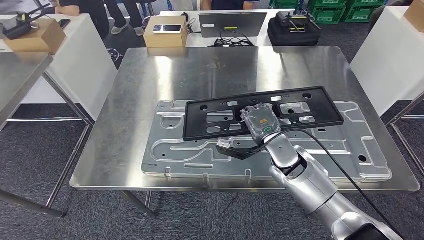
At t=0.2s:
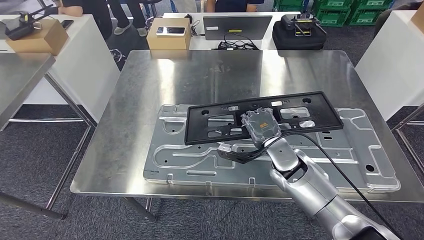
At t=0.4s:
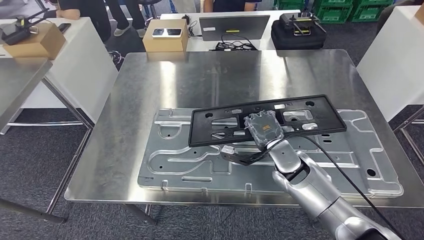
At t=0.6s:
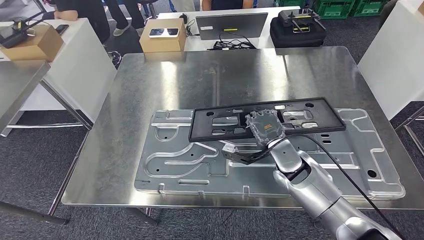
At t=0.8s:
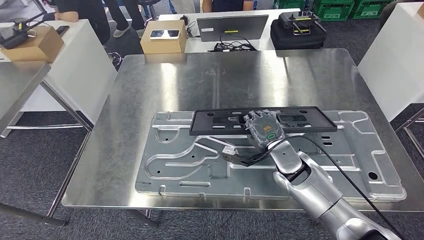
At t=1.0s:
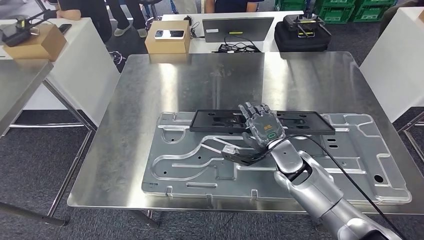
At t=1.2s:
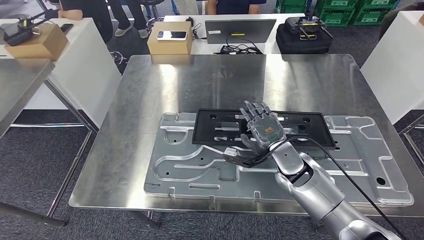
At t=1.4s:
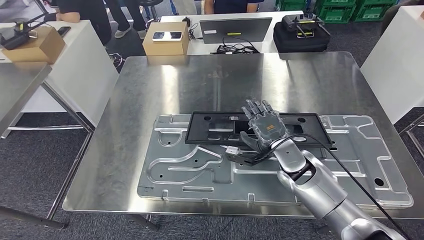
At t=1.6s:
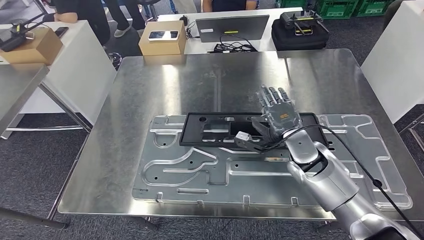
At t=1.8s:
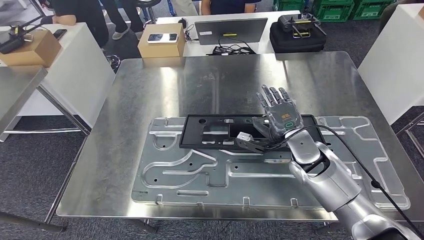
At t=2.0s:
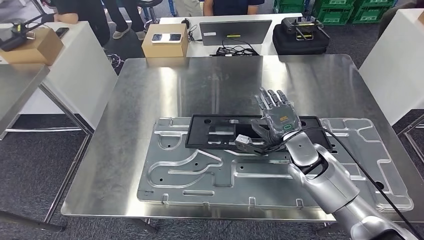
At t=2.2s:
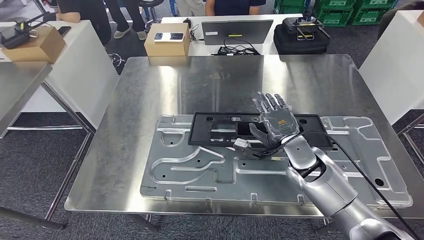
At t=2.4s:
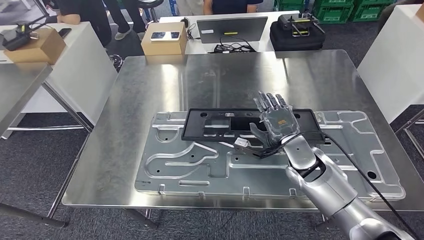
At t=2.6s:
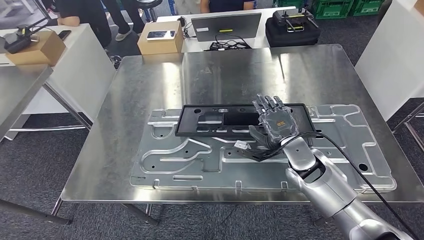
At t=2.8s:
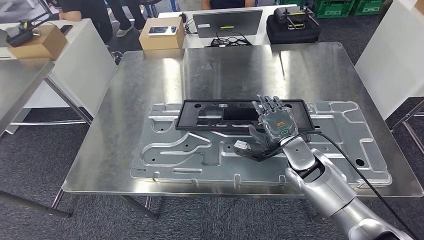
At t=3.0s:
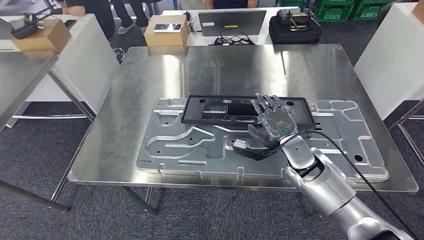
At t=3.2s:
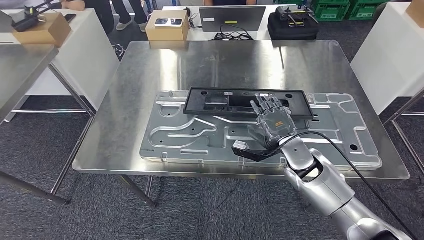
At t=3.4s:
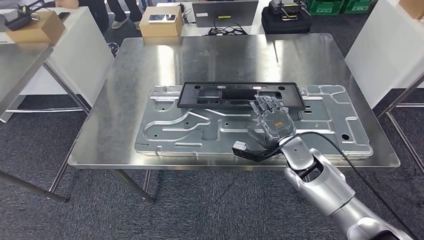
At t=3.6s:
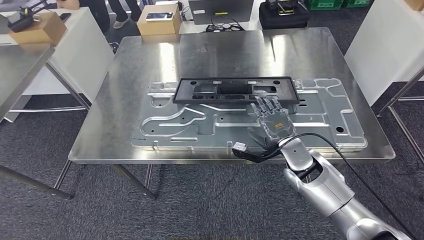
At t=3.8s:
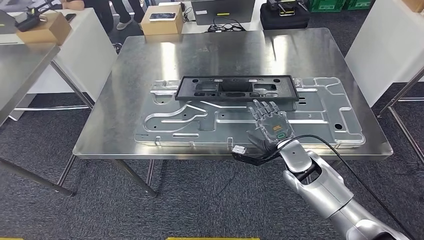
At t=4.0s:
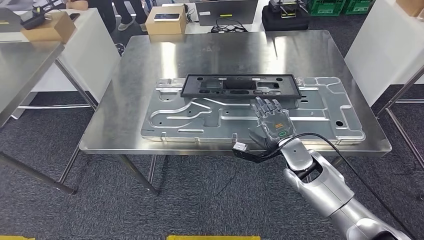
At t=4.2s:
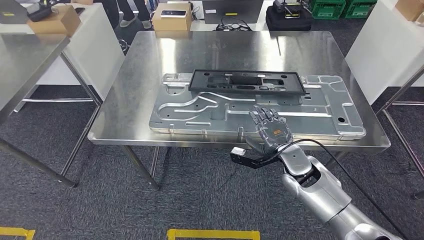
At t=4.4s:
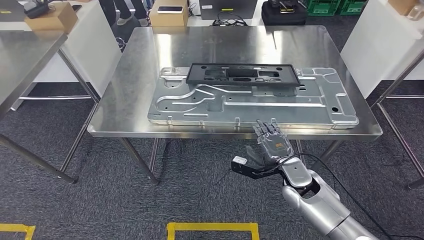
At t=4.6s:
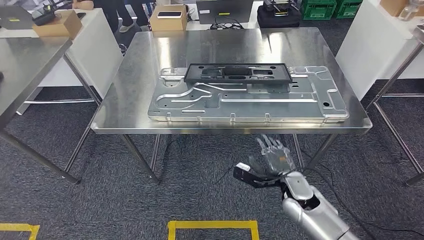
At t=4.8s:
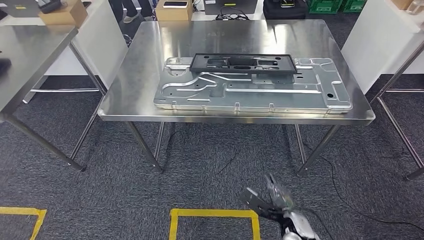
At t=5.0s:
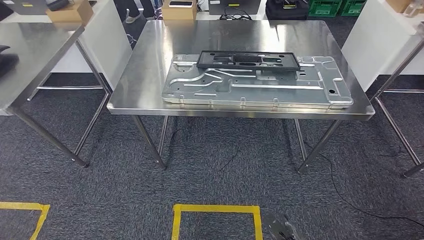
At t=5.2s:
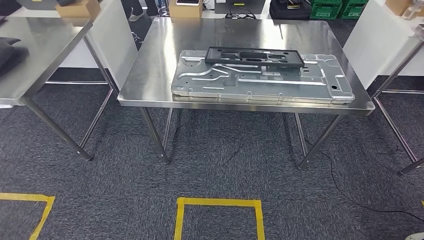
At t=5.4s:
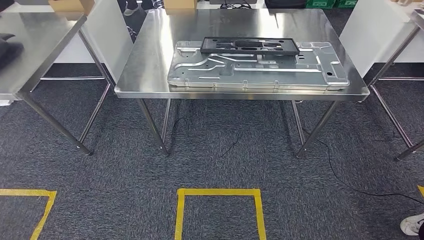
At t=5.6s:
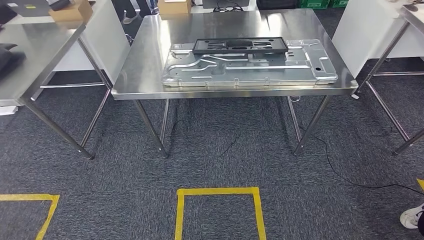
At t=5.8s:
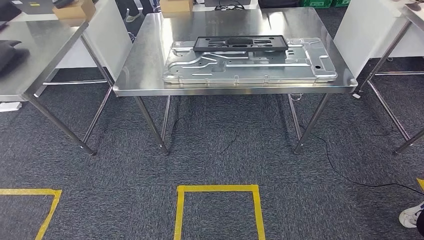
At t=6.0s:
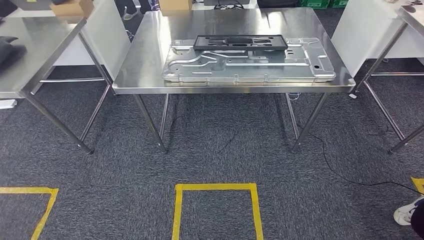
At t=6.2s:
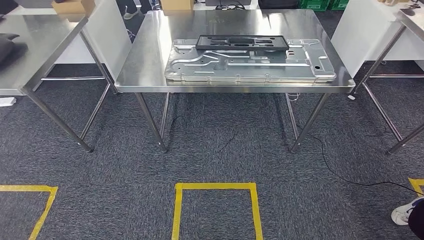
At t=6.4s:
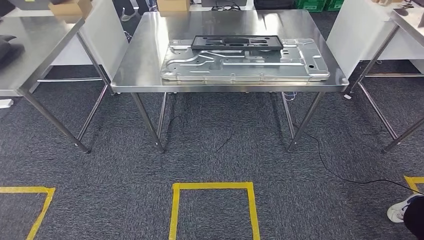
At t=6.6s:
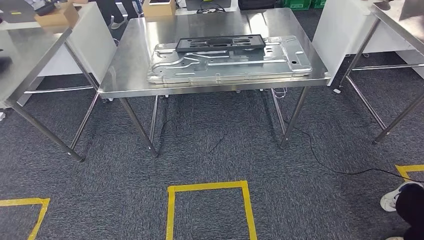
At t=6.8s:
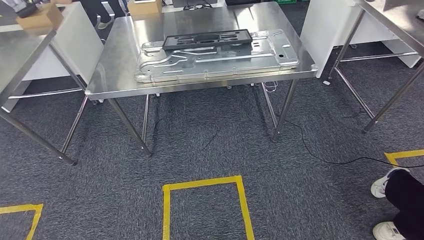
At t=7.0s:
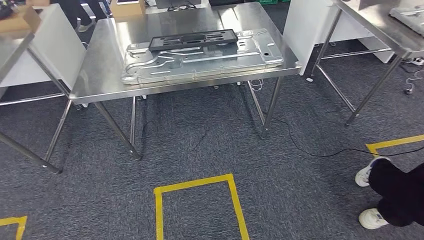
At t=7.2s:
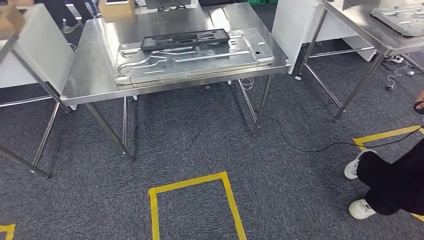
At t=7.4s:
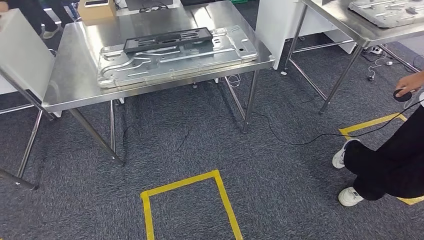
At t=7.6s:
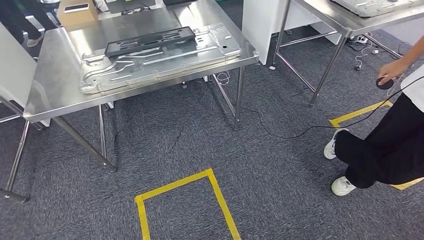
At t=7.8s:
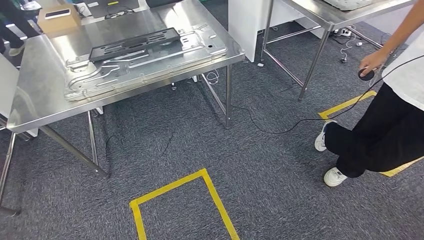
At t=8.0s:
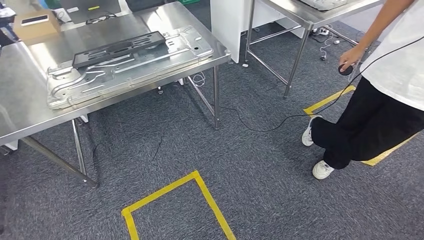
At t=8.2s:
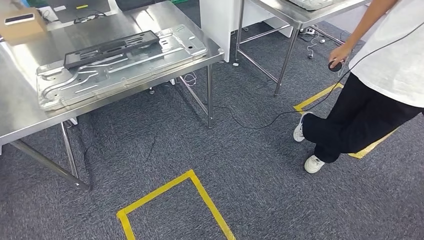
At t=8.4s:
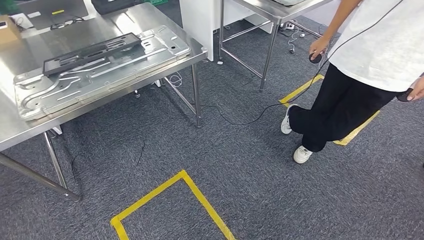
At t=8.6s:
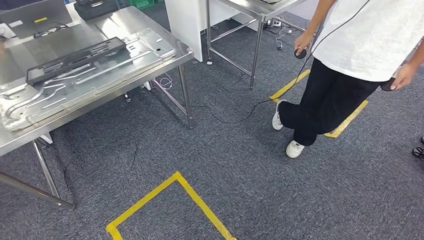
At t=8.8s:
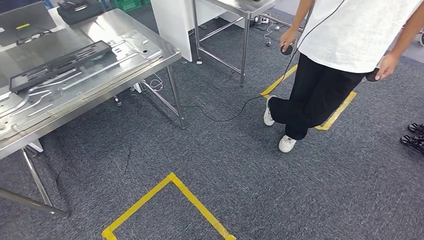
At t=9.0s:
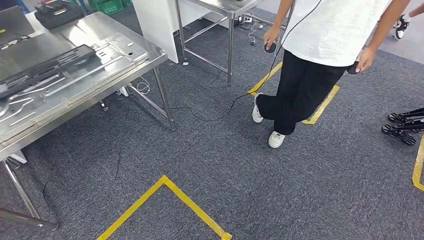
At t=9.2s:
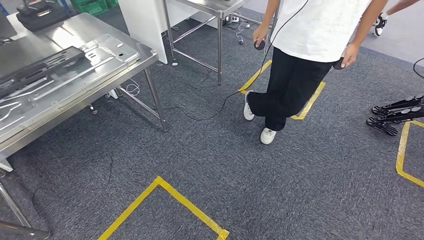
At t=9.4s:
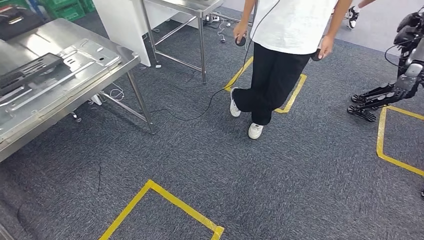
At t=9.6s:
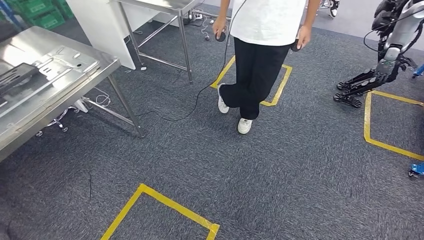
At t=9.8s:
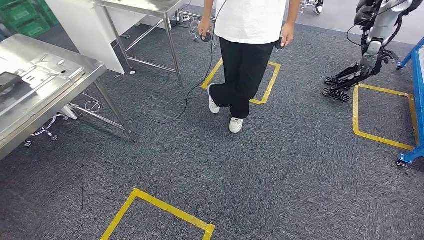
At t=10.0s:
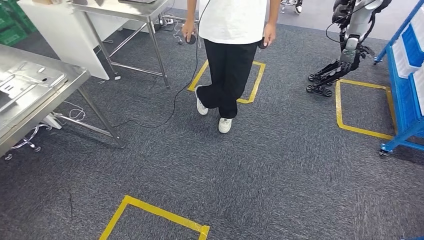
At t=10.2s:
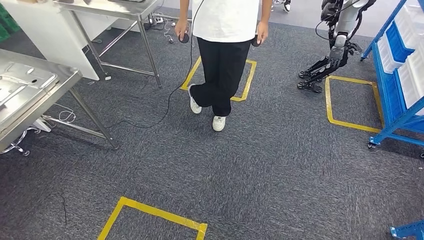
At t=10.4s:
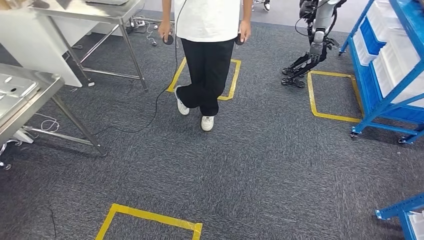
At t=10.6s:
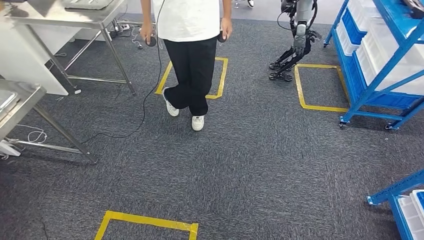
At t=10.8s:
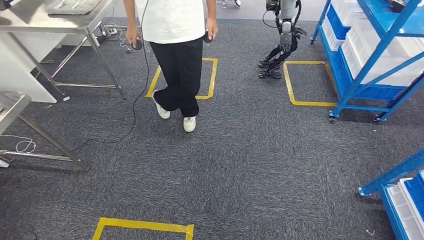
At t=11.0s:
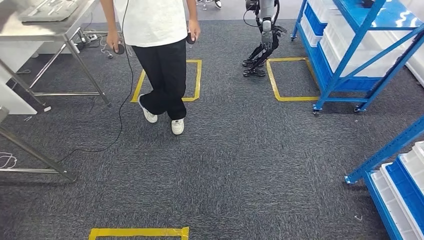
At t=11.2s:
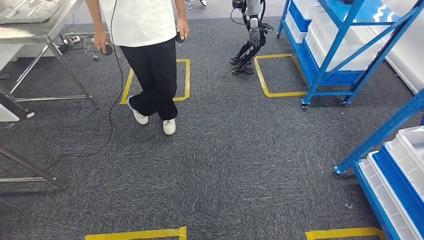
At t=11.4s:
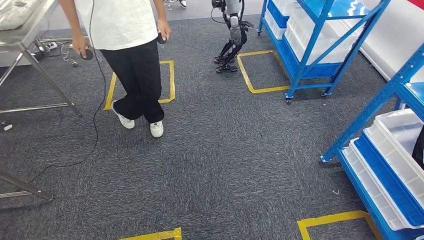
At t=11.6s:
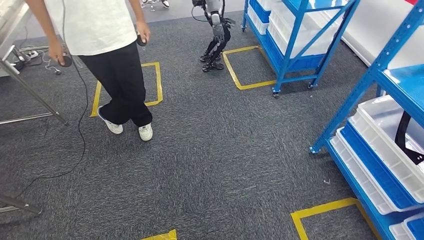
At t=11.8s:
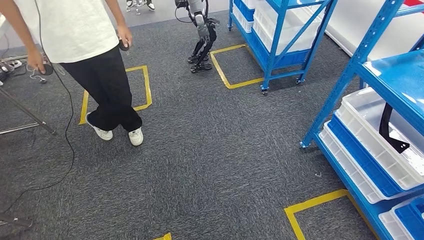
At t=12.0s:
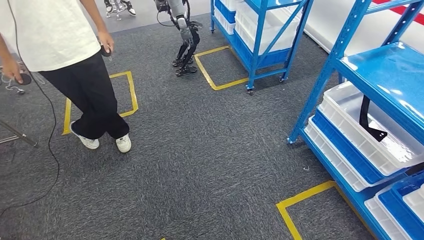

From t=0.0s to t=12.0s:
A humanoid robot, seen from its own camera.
Step, from t=0.0s to t=6.4s: Insert the large material into the corresponding slot on the workbench.

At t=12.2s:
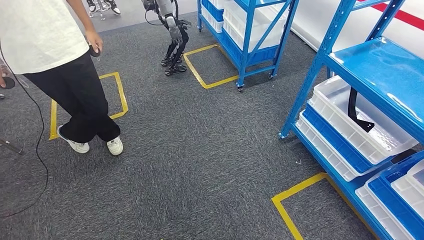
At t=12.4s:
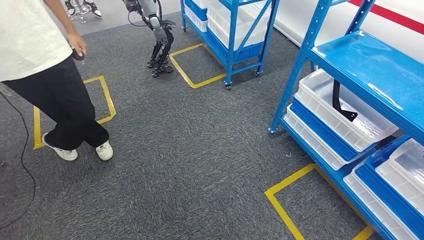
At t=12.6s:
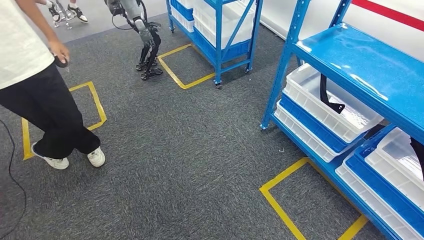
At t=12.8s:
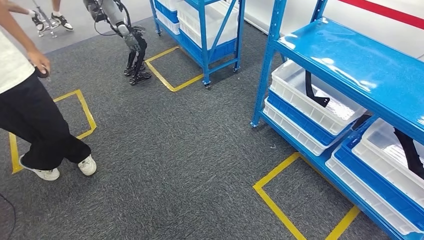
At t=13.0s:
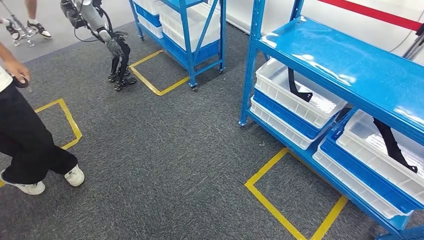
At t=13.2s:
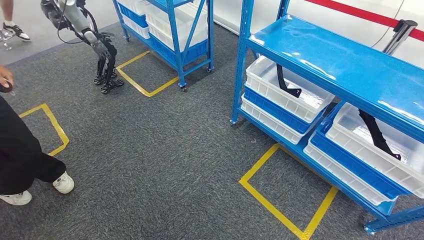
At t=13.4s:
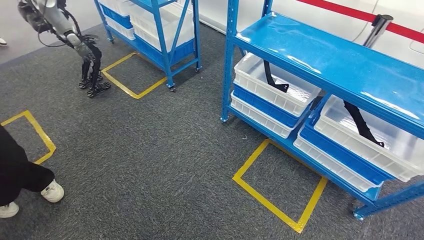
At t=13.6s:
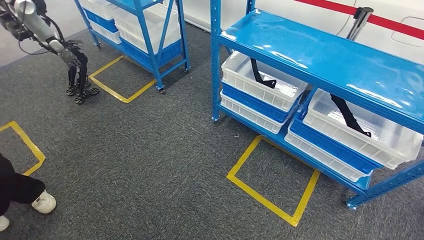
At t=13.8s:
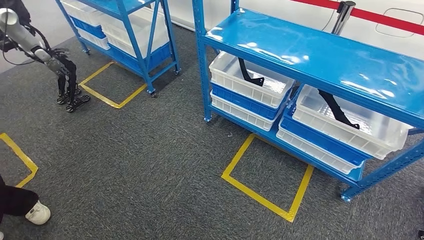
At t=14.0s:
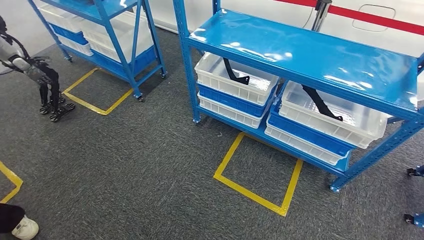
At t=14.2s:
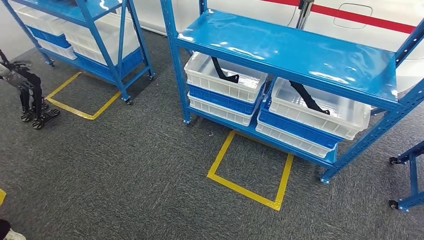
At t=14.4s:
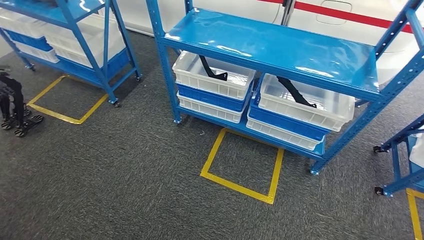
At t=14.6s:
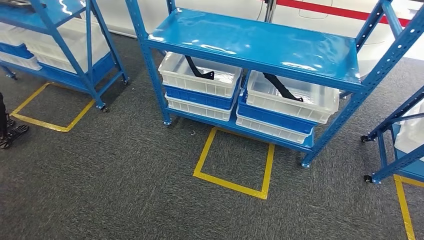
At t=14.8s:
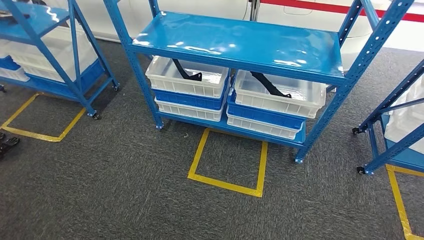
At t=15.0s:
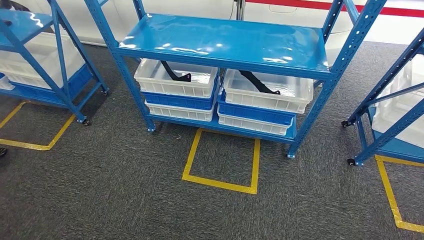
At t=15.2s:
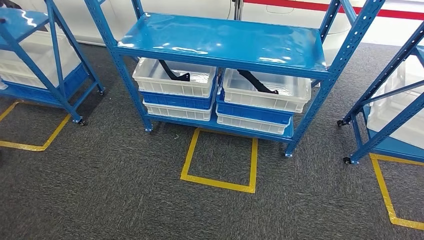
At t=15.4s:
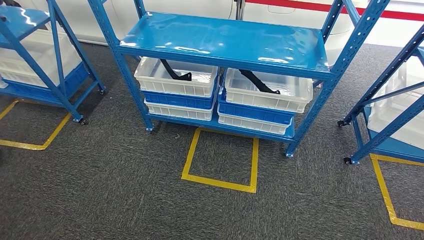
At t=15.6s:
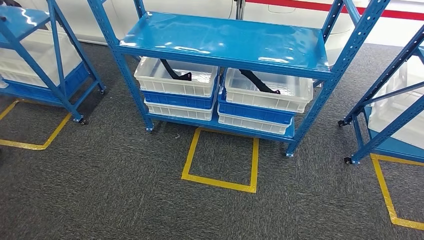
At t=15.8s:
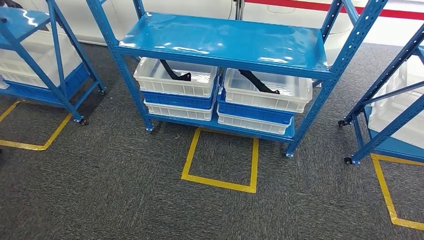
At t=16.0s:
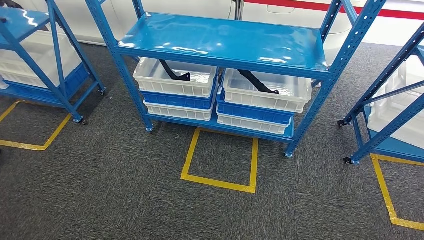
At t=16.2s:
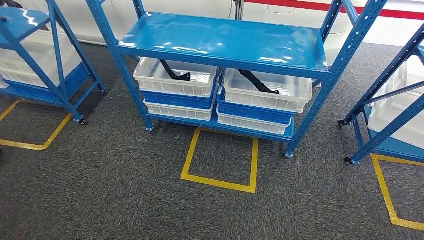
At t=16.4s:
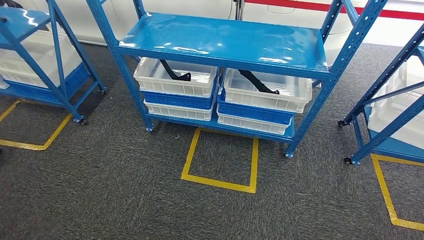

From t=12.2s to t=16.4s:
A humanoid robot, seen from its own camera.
Step, from t=12.2s to t=16.4s: Move to the initial position of the shelf.
From t=15.0s to t=16.4s: The hands stay close to where they were, moving slightly.

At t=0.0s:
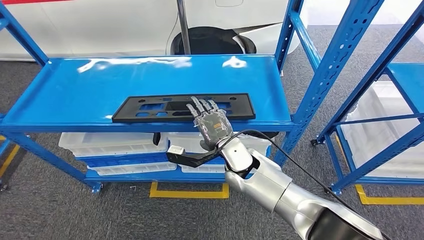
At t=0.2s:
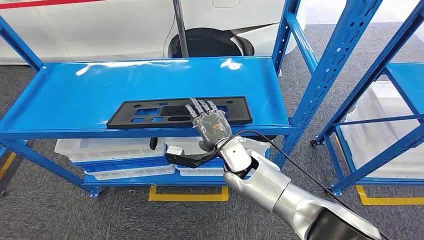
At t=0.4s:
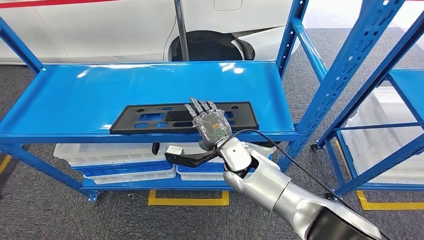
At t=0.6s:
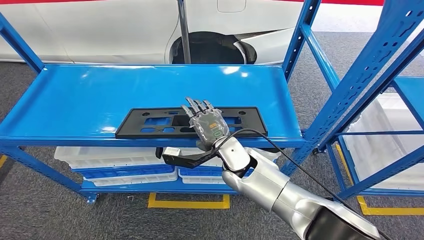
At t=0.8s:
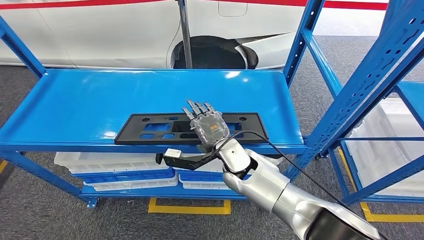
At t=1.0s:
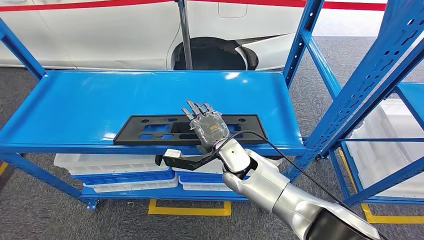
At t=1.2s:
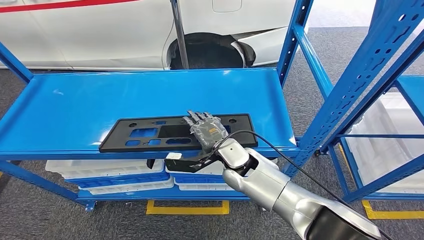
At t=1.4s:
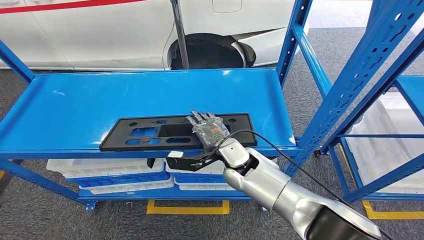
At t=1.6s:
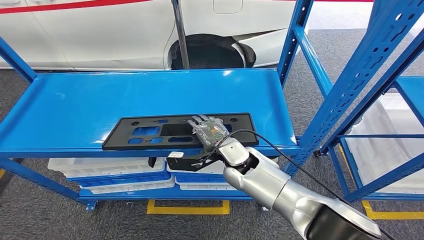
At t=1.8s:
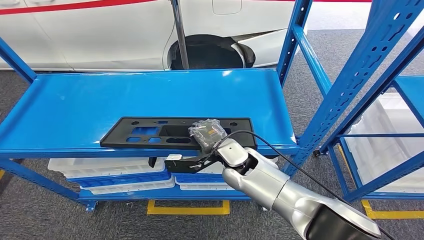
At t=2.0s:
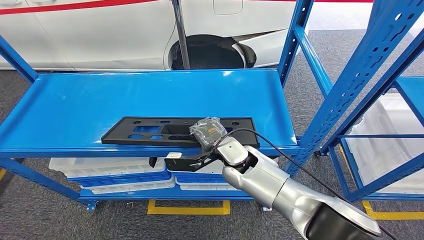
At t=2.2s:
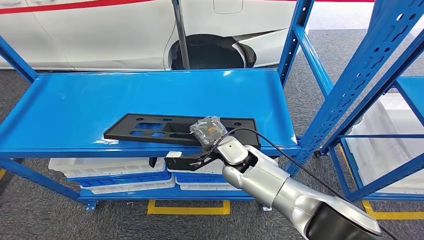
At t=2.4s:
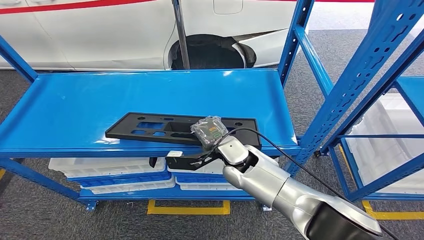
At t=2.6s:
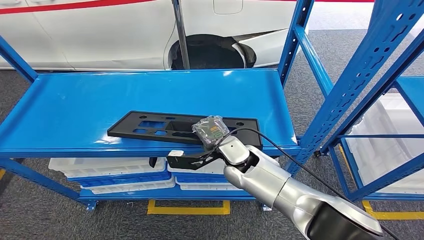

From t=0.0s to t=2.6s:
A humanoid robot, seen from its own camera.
From t=1.2s to t=2.6s: The hands stay close to where they were, moving slightly.